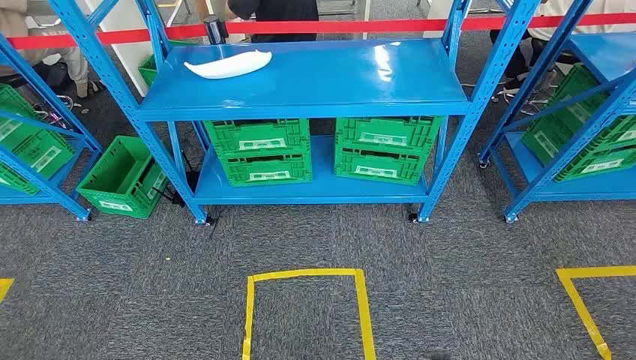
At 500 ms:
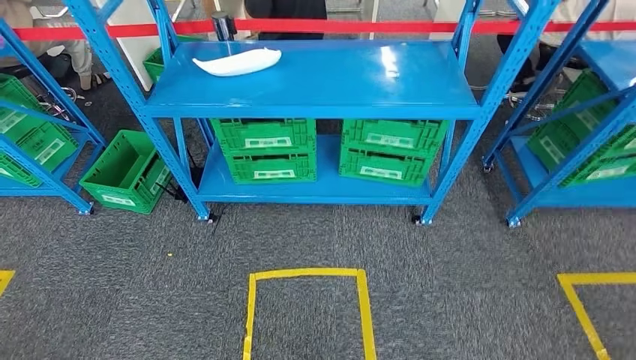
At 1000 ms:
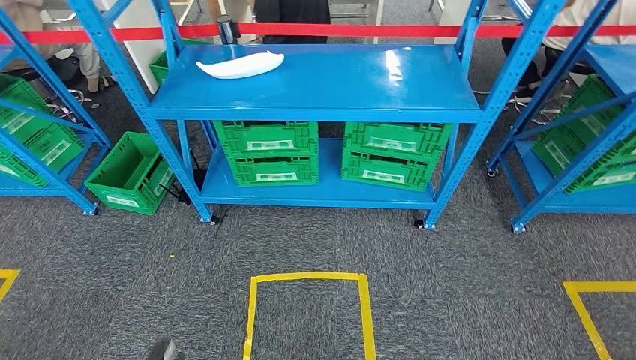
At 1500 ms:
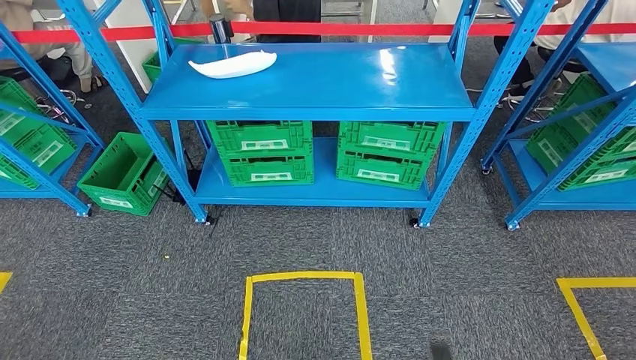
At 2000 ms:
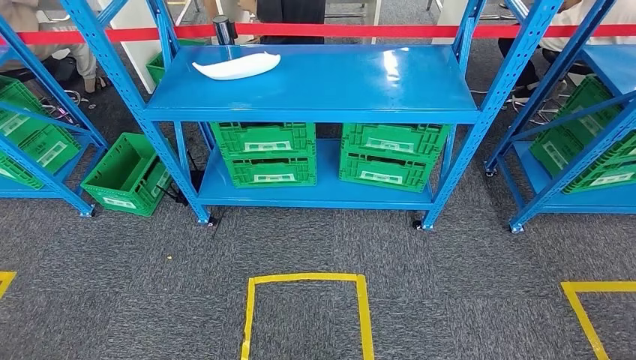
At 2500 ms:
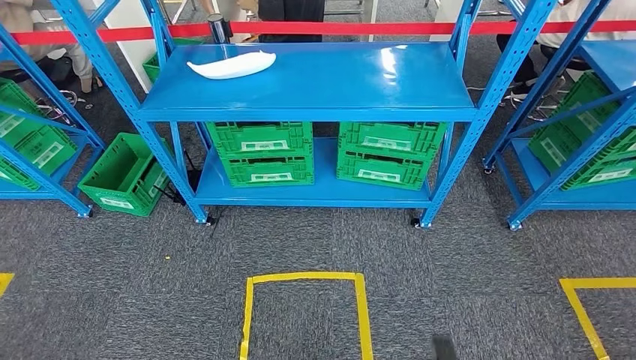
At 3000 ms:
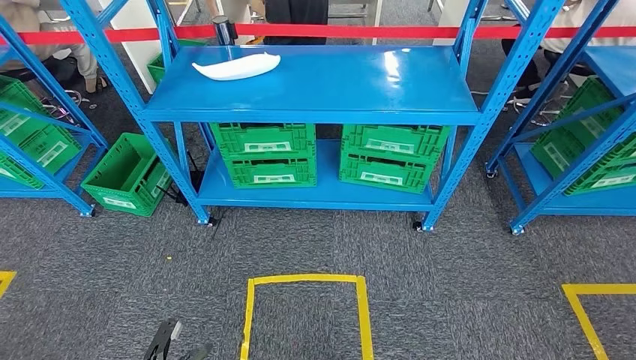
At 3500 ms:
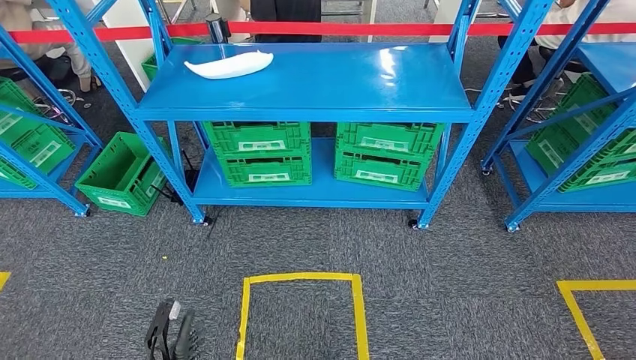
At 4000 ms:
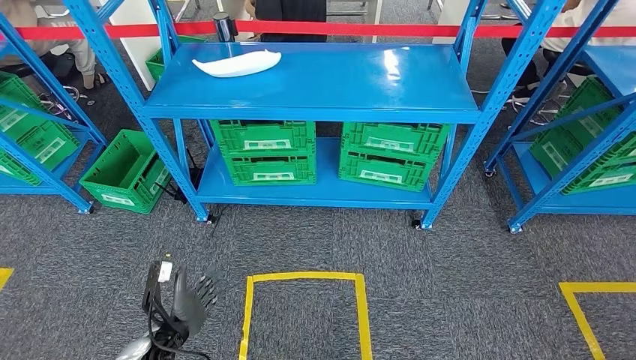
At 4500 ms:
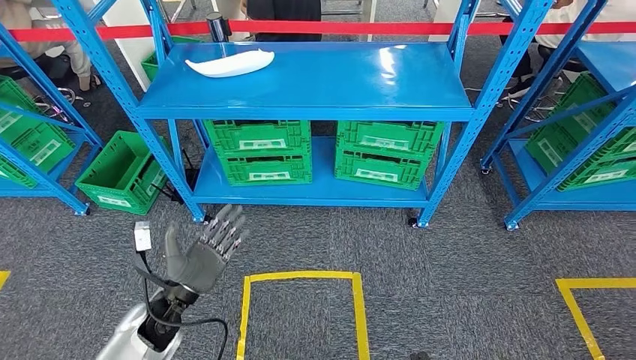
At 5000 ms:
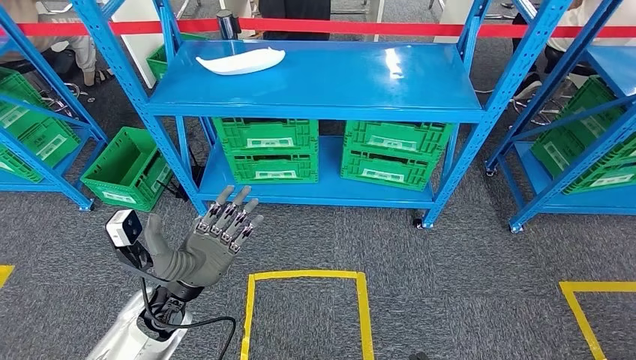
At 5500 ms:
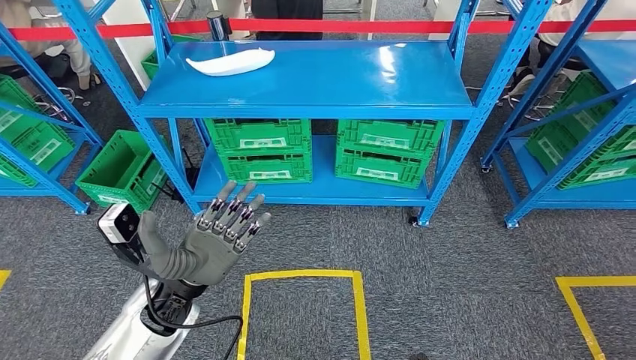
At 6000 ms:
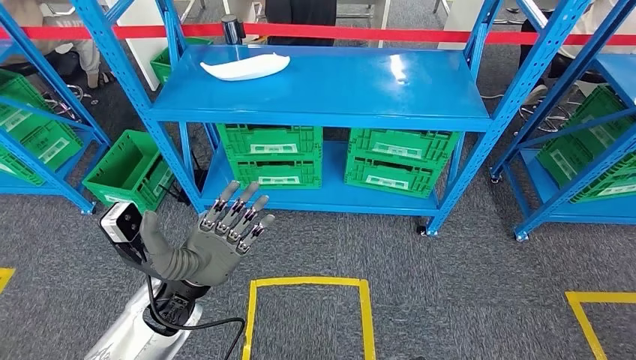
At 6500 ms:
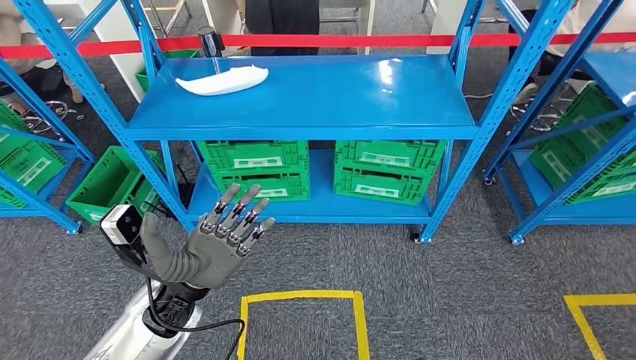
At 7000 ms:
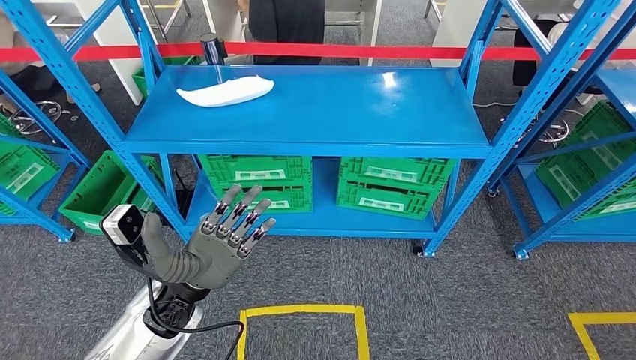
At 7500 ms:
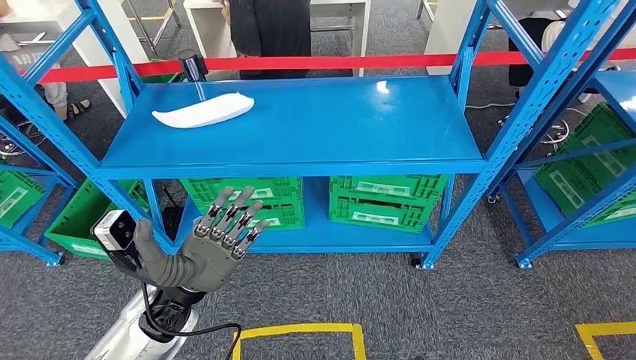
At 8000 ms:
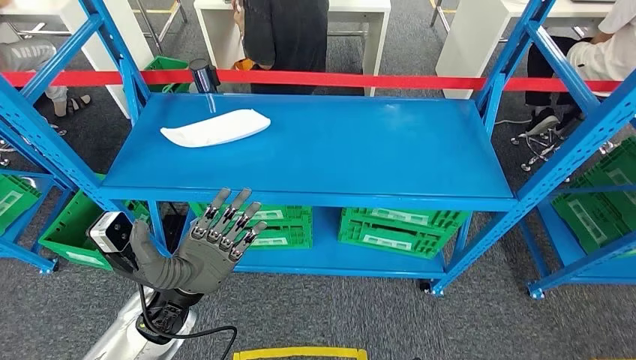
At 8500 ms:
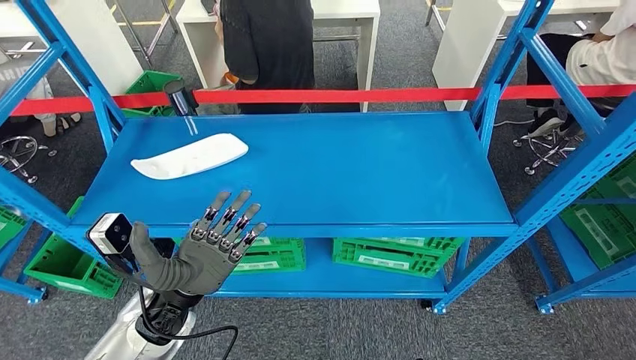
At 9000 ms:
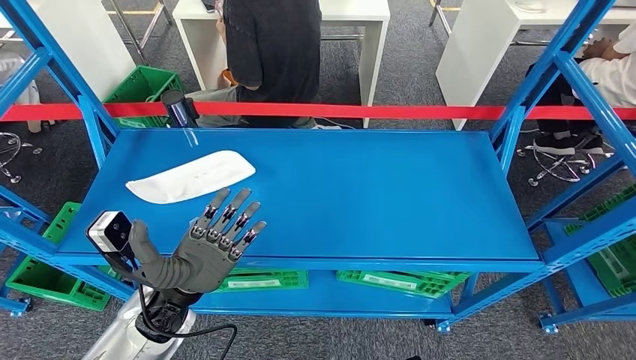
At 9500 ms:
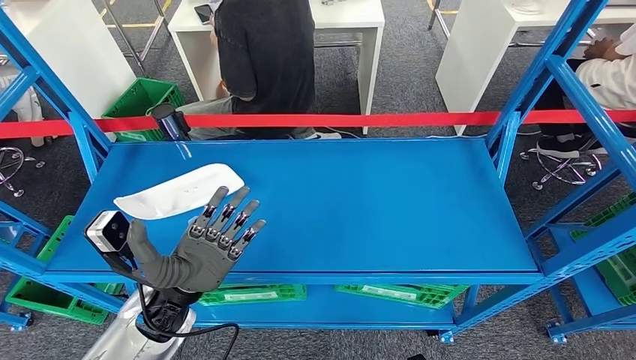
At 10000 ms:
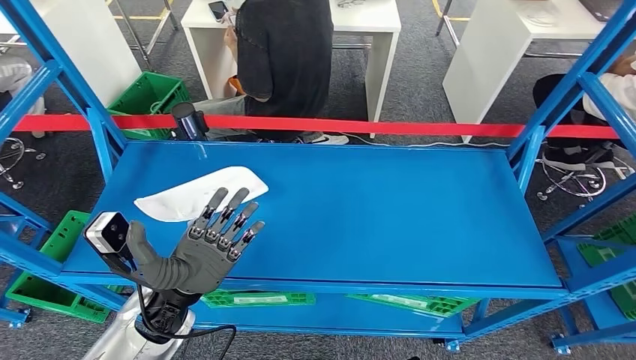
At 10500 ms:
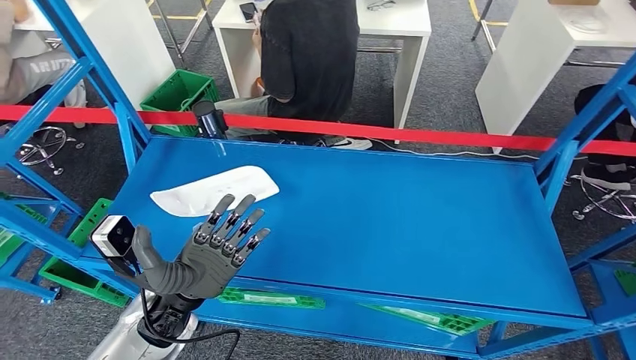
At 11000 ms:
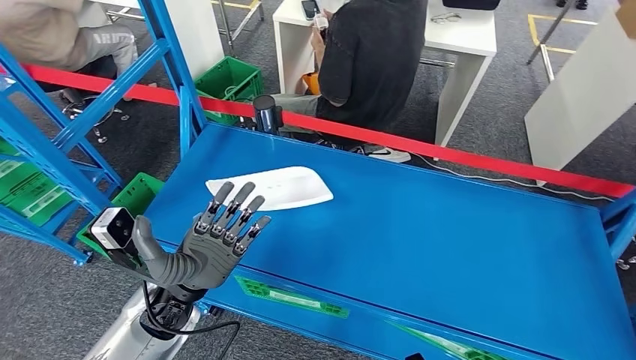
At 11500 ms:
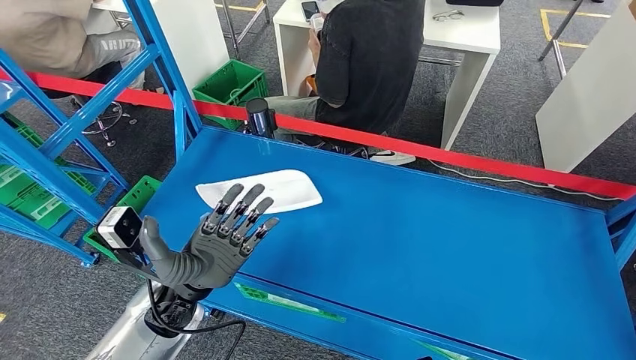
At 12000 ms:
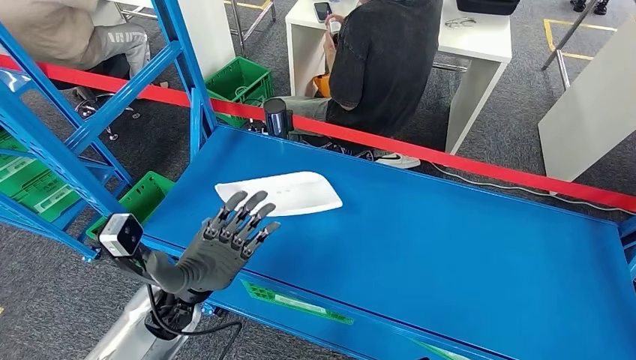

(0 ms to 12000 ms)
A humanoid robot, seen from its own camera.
2000 ms - 4000 ms: The left hand moves forward and upward, about 15 cm. The right hand goes forward and backward, some 15 cm each way, reversing 2 times.

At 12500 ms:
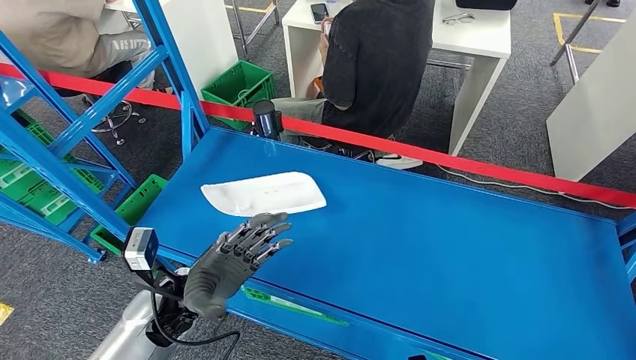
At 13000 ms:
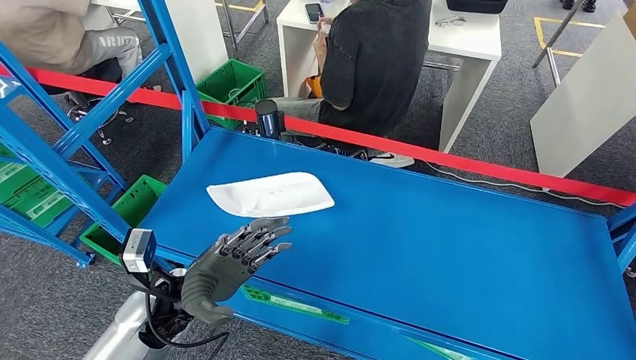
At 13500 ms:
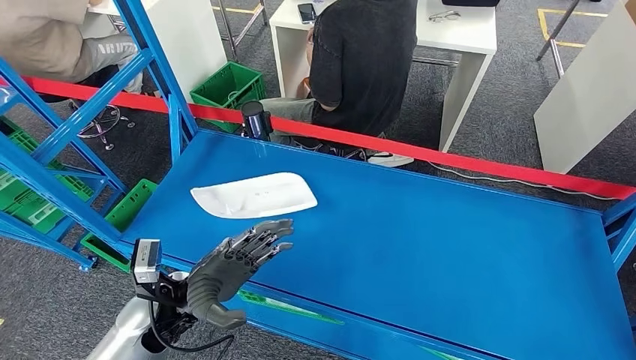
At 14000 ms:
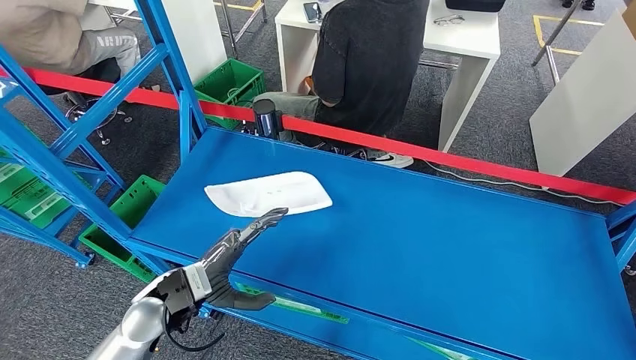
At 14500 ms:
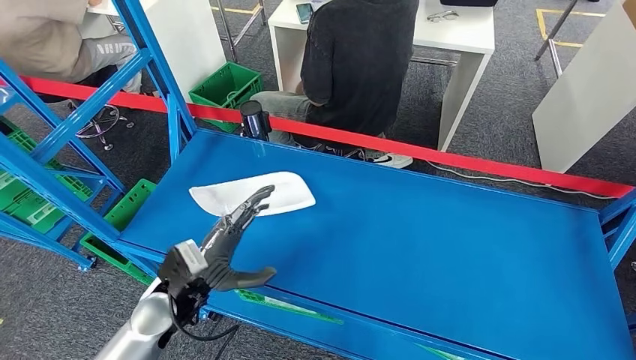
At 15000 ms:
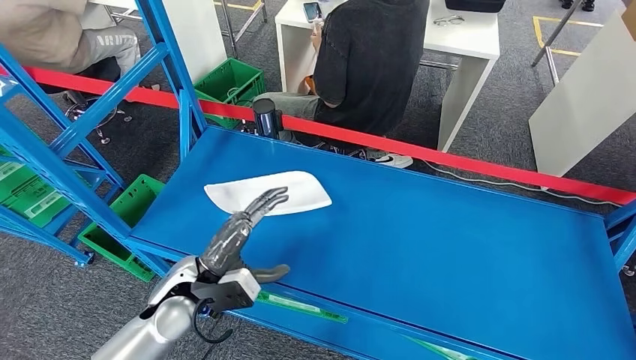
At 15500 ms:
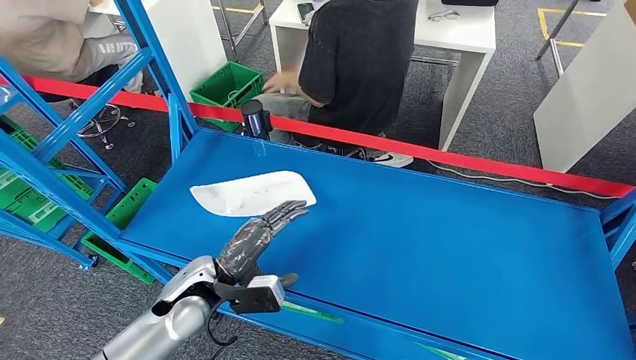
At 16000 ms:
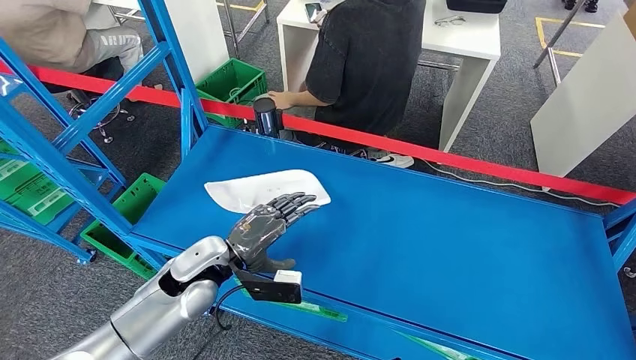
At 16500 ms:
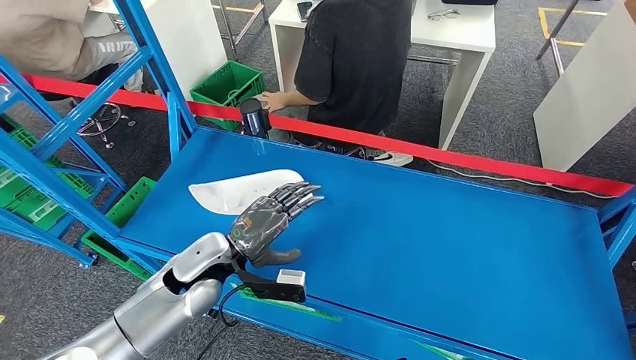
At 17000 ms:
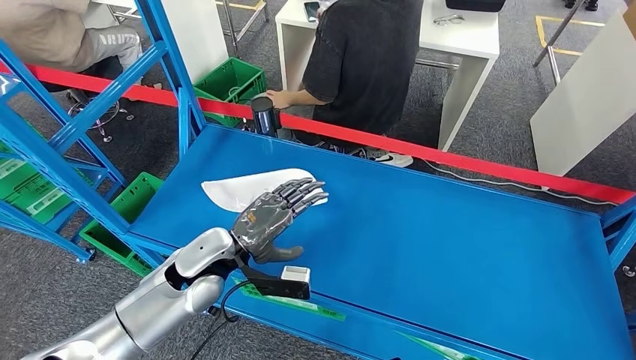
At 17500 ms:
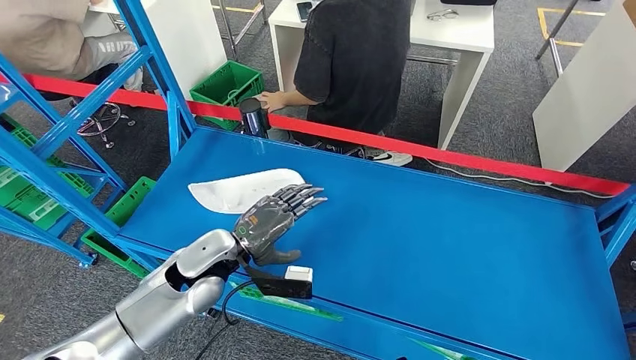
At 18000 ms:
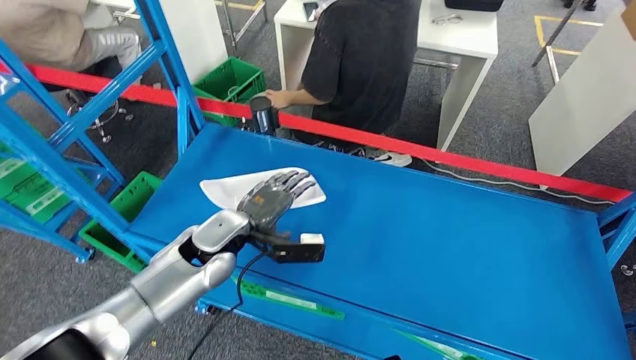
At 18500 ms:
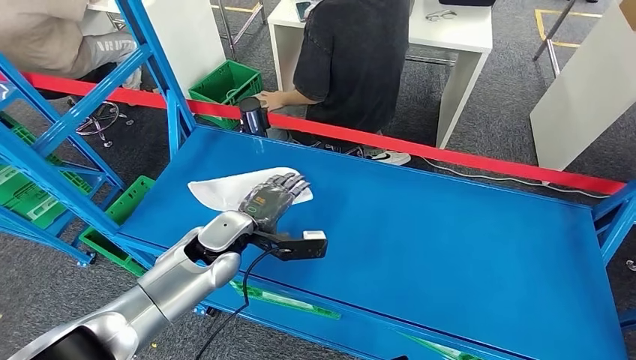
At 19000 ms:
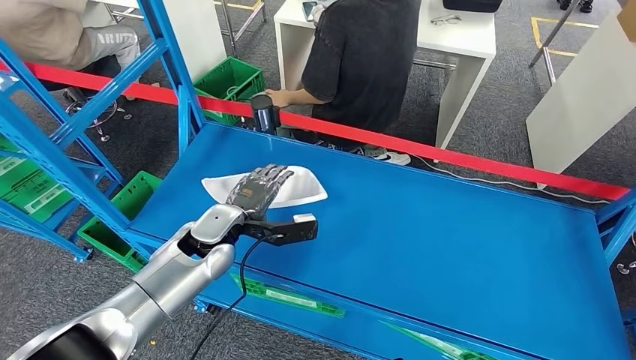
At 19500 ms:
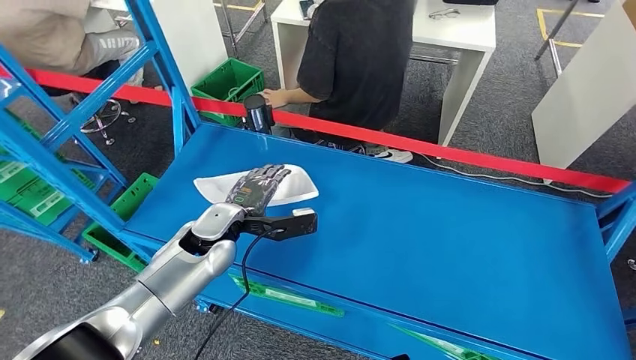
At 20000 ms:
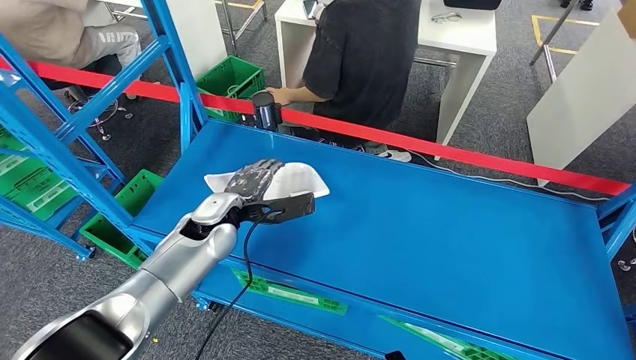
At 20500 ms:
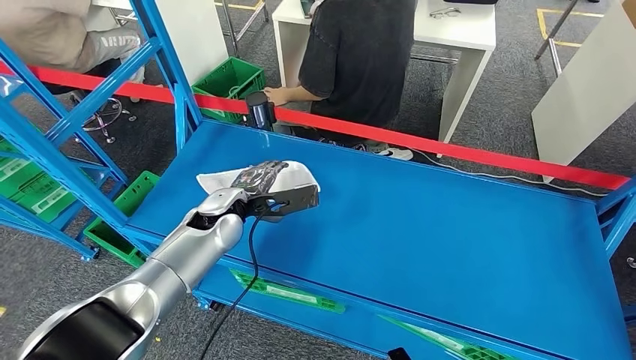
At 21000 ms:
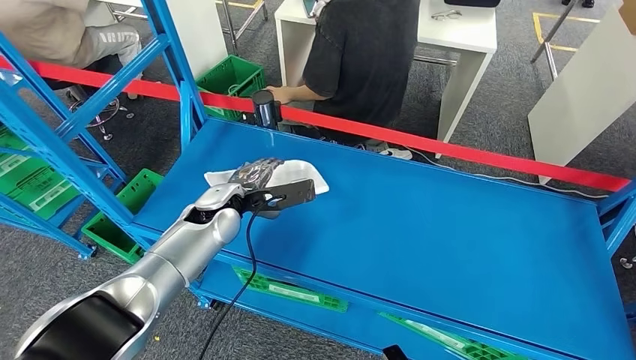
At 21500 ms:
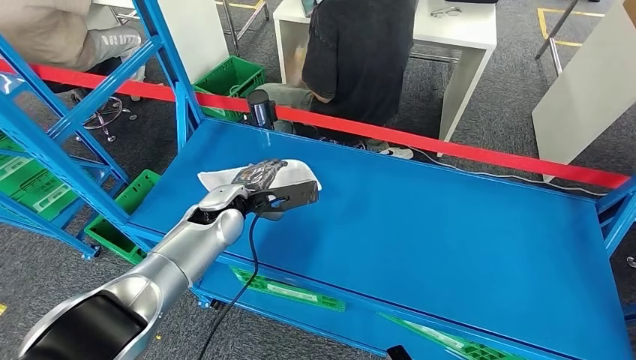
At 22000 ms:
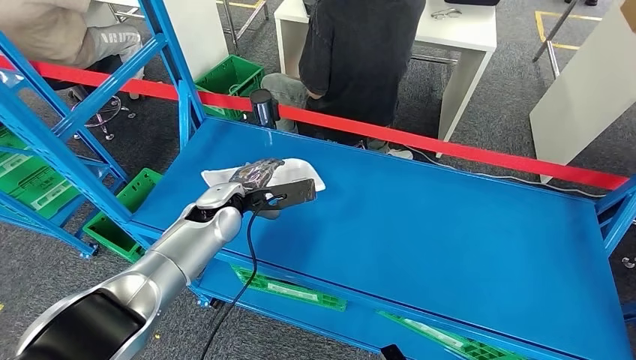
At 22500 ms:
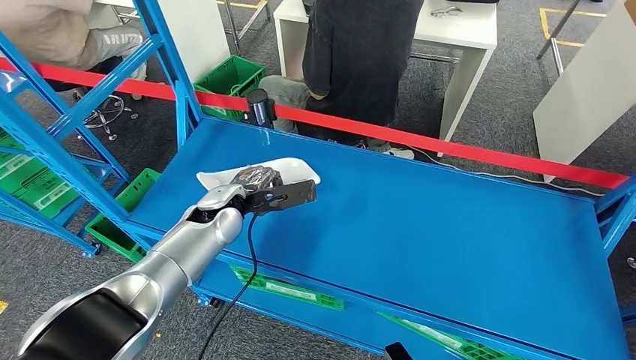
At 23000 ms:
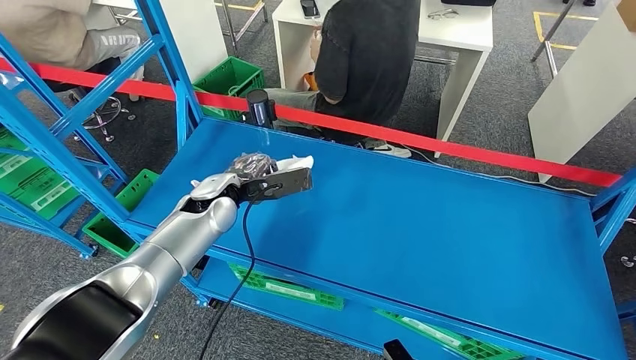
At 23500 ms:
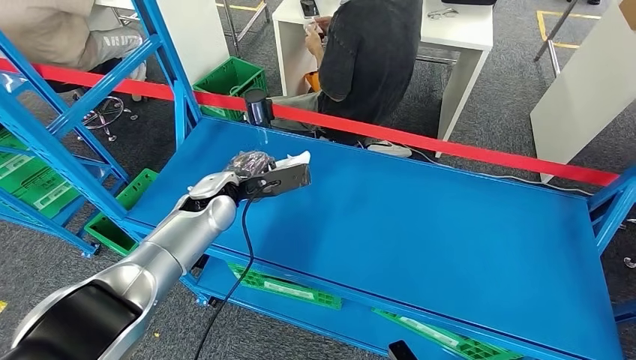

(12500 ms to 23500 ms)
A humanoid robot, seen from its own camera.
16000 ms - 18000 ms: The left hand moves about 5 cm.
20000 ms - 23500 ms: The hands stay close to where they were, moving slightly.
